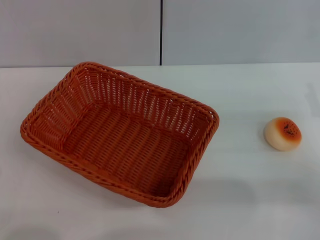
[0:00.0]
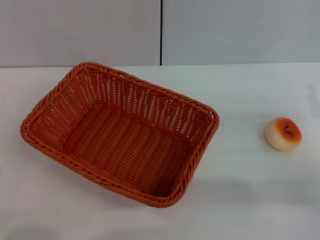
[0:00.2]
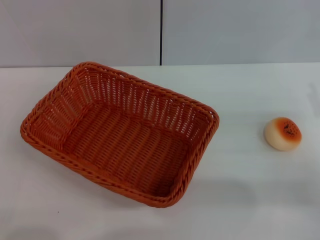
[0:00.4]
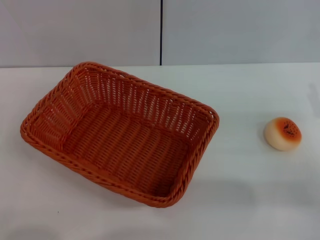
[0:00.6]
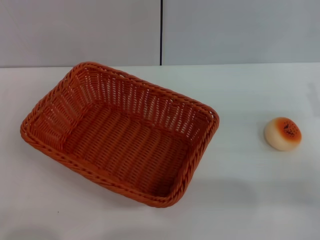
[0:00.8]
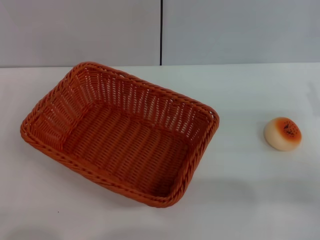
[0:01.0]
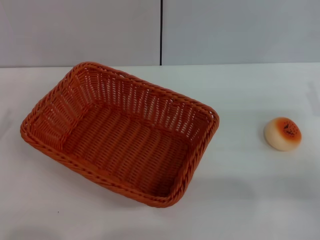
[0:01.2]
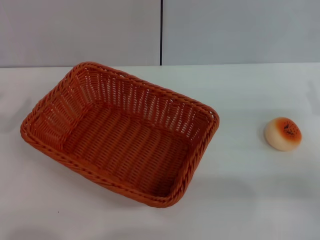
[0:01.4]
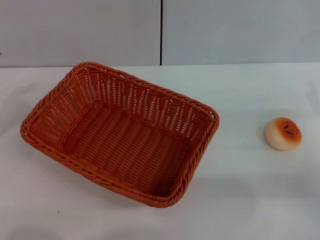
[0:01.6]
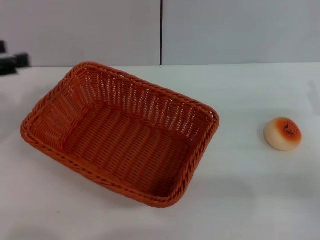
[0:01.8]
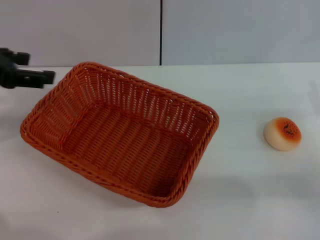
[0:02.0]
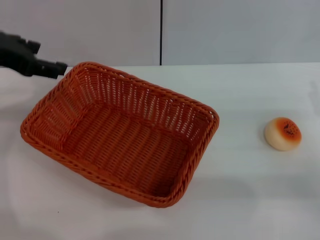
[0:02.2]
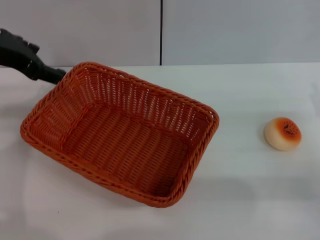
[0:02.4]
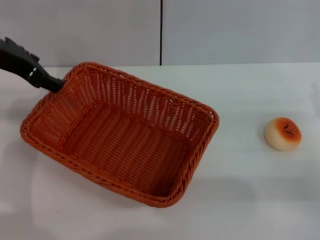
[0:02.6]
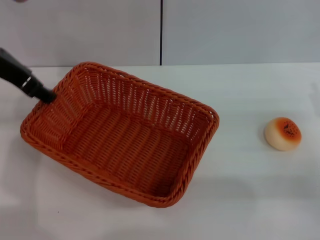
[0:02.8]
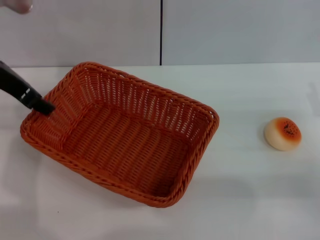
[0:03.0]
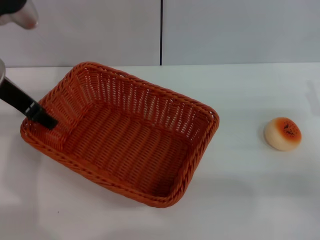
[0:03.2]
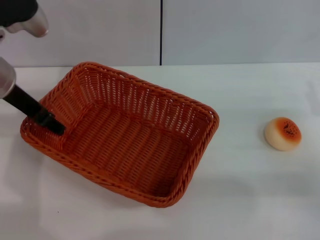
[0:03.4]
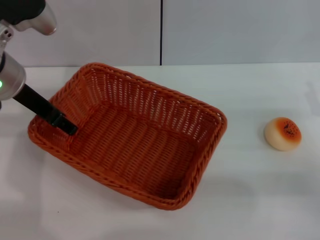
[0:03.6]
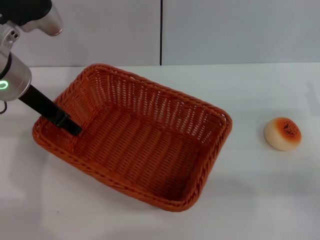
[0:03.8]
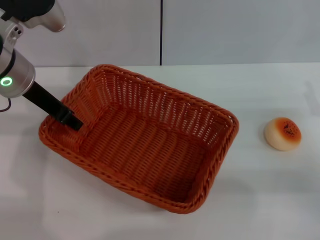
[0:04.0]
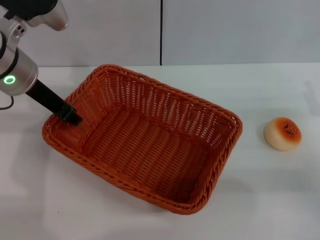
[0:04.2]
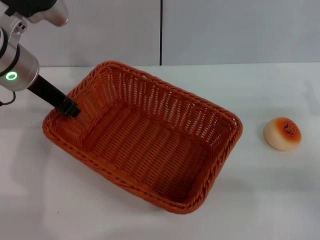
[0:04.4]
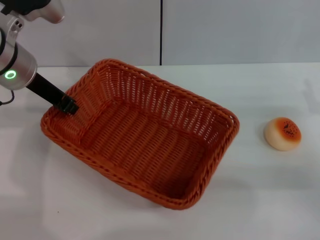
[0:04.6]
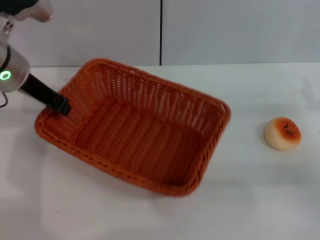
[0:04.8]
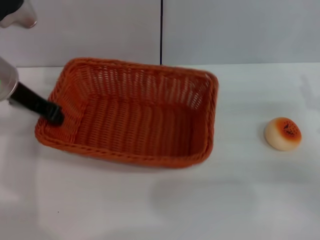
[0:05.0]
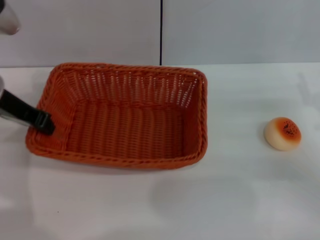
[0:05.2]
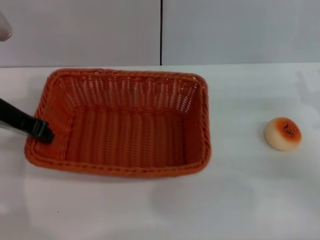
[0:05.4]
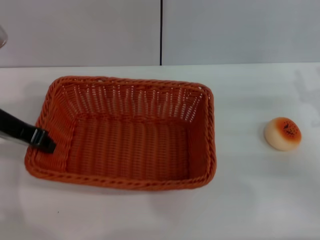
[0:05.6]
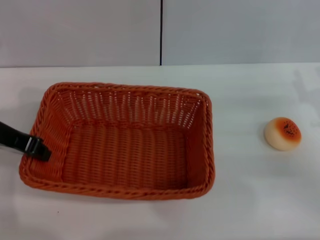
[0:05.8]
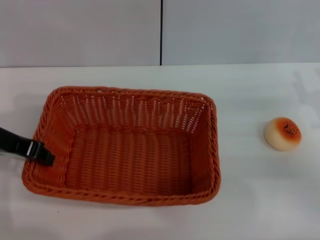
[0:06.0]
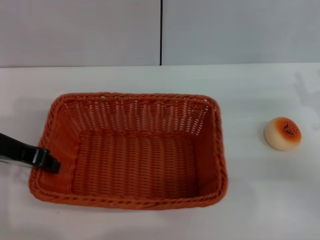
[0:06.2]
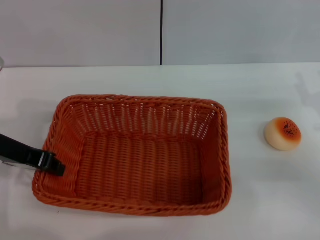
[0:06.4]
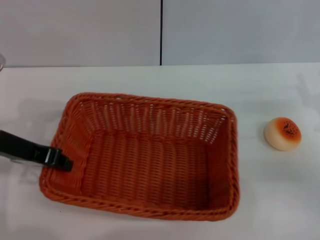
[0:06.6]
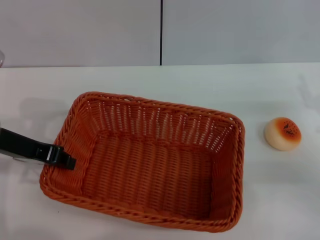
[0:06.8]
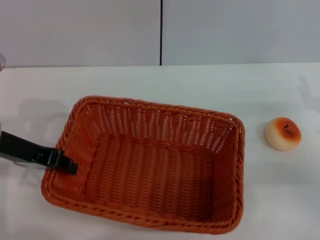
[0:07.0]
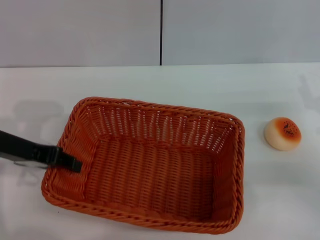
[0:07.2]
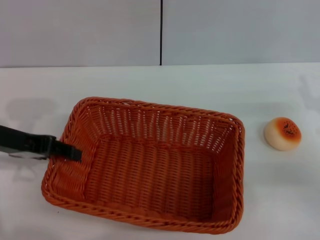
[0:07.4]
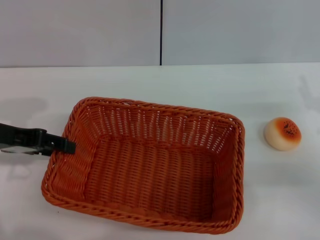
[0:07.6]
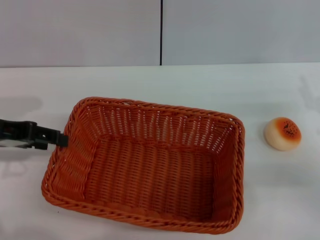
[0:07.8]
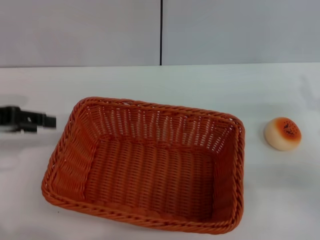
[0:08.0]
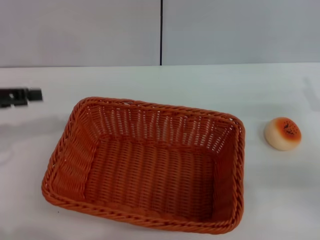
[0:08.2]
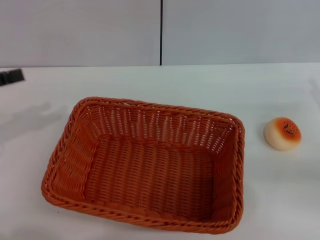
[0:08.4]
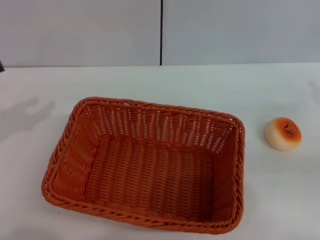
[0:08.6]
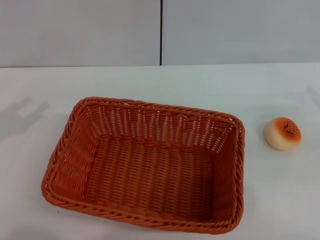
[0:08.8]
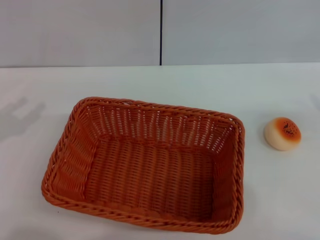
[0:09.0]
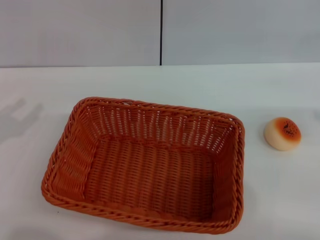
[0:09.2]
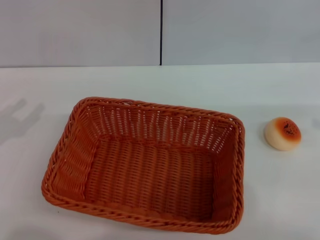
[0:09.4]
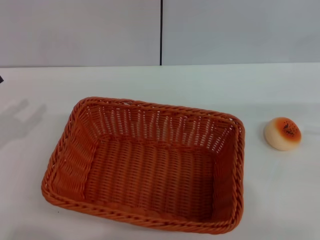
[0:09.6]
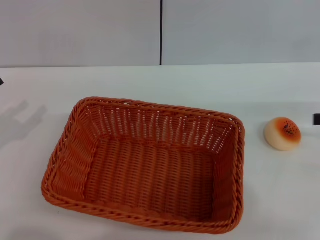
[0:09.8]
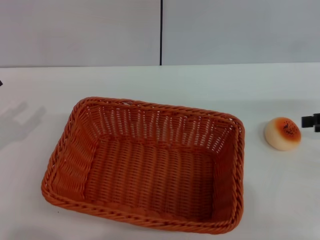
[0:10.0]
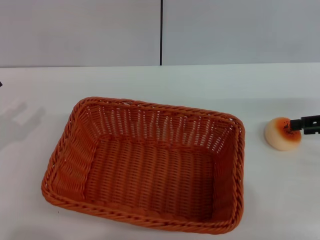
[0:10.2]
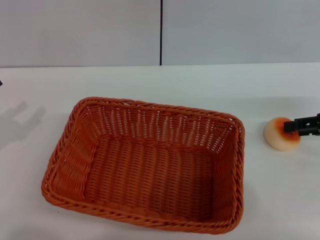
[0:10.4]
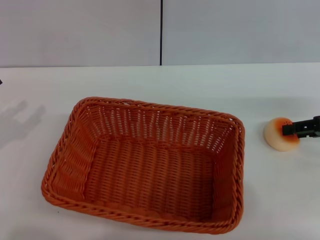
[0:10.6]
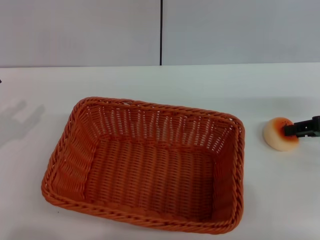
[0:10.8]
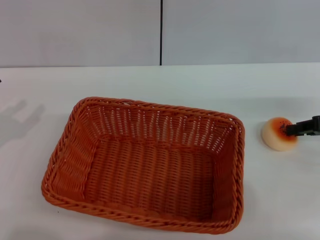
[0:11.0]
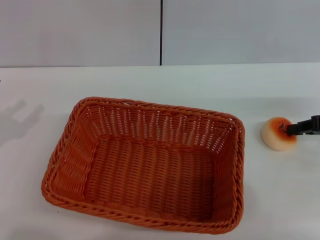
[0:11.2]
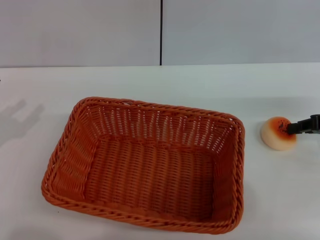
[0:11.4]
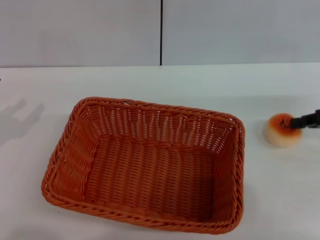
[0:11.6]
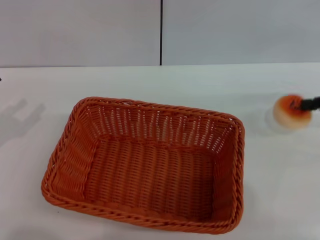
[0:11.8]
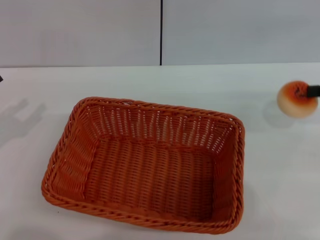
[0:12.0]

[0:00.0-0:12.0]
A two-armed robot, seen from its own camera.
Step, 0:00.0 to 0:07.8: Move the basket to the center of view with the left gripper.
Step, 0:08.0 to 0:11.8: Pick up the egg yolk pastry with the right gripper.
0:01.6 to 0:03.0: The left gripper heads to the right and forward, covering roughly 15 cm.
0:03.0 to 0:04.4: The left gripper closes up.
0:04.4 to 0:06.0: The left gripper heads backward and to the left, covering some 10 cm, and closes.
0:06.0 to 0:07.6: The left gripper opens up.
0:07.6 to 0:09.0: The left gripper travels to the left, downward and backward by roughly 15 cm. Meanwhile the right gripper shifts some 15 cm upward and to the right.
0:09.0 to 0:10.4: The right gripper is displaced downward, to the left and forward by roughly 10 cm.
0:10.4 to 0:12.0: The right gripper shifts about 5 cm upward, and closes.

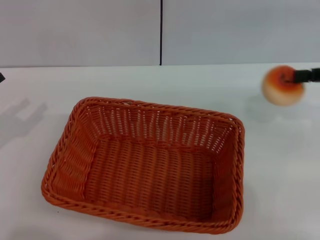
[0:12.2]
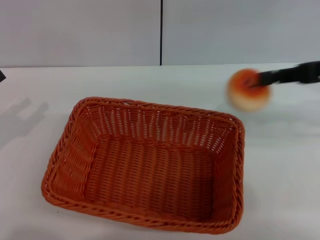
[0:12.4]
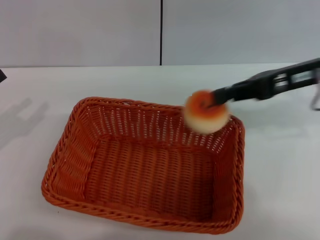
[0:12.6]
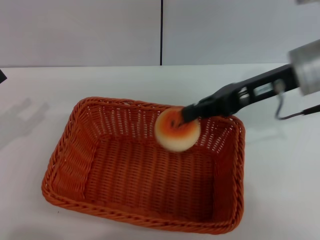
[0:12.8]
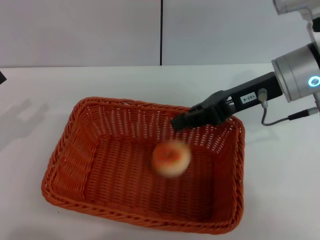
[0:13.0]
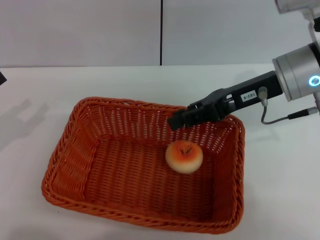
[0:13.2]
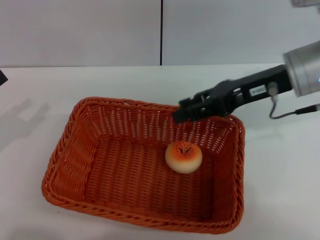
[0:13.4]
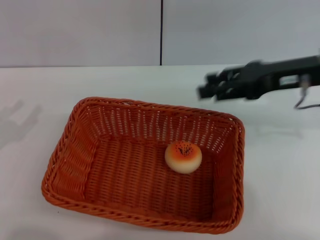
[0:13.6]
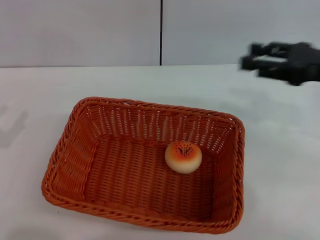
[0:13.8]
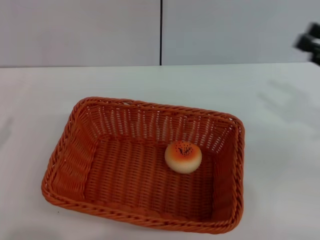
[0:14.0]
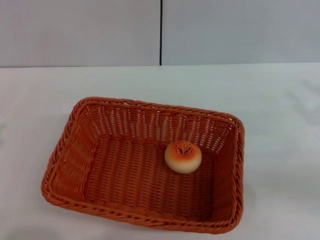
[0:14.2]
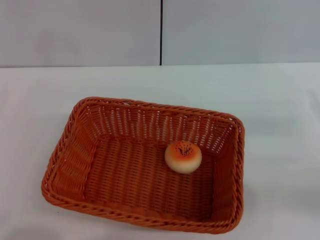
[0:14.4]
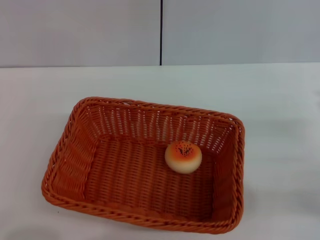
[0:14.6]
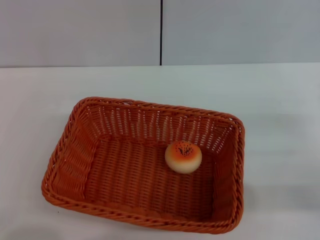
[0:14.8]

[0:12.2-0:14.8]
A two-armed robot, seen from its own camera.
Step, 0:12.2 to 0:13.0: Place the egg yolk pastry into the basket with the right gripper.
0:12.2 to 0:13.4: The right gripper goes some 15 cm to the left.
0:13.4 to 0:14.8: The right gripper heads to the right, backward and downward, covering some 20 cm, and opens up. Meanwhile the left gripper moves backward and downward, some 10 cm.

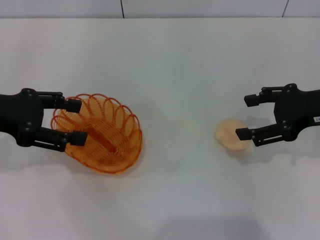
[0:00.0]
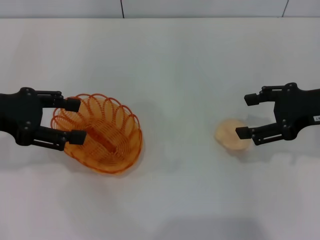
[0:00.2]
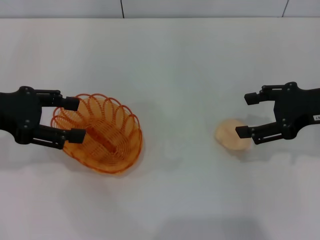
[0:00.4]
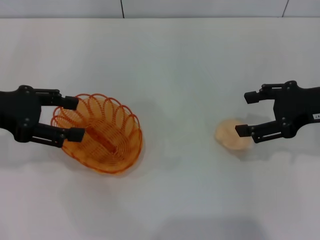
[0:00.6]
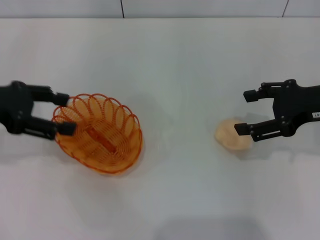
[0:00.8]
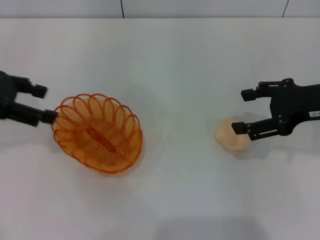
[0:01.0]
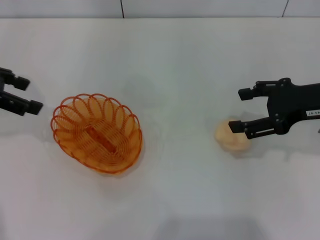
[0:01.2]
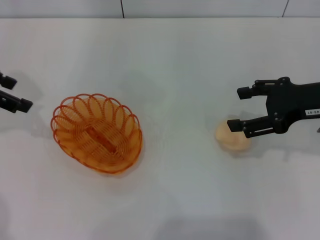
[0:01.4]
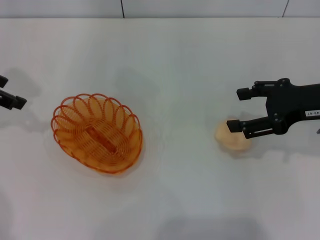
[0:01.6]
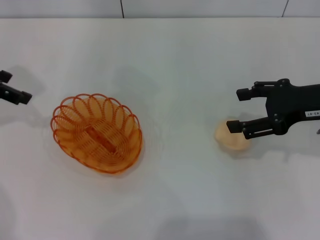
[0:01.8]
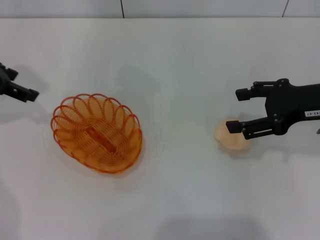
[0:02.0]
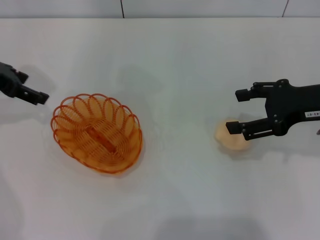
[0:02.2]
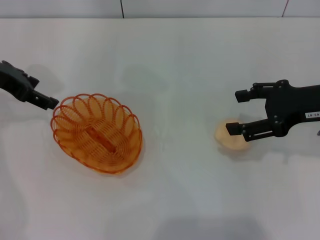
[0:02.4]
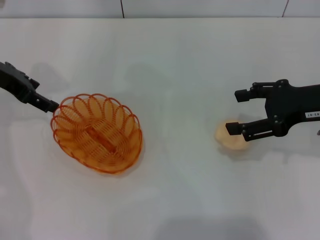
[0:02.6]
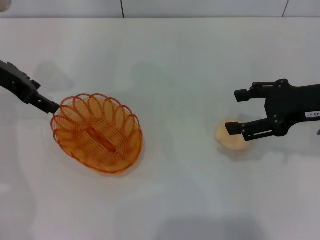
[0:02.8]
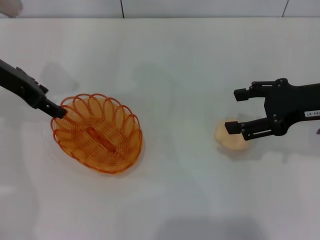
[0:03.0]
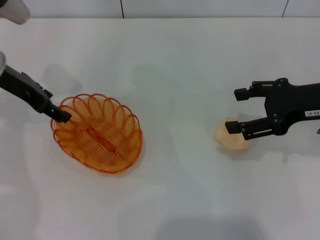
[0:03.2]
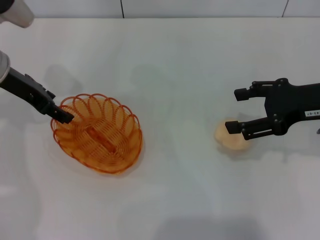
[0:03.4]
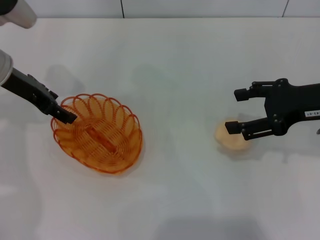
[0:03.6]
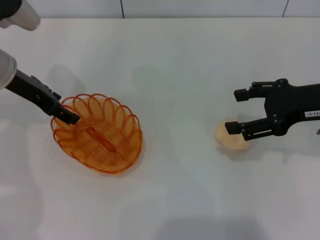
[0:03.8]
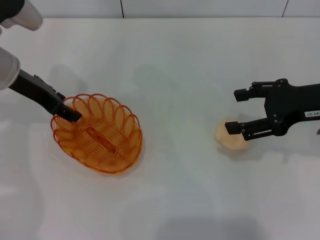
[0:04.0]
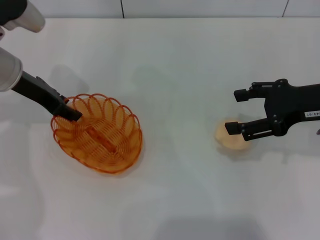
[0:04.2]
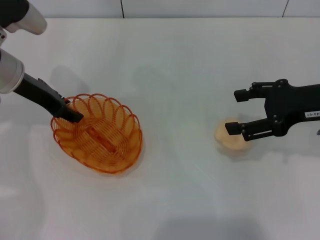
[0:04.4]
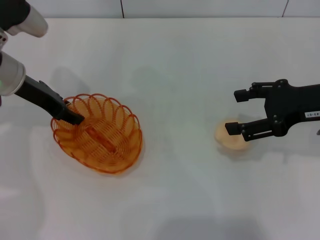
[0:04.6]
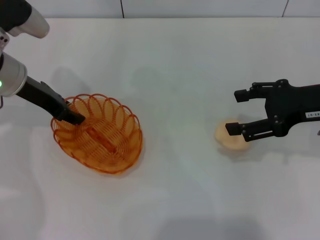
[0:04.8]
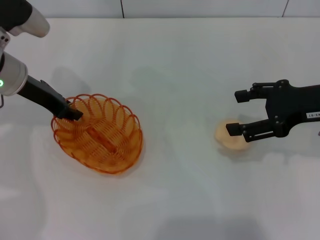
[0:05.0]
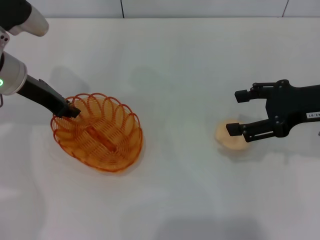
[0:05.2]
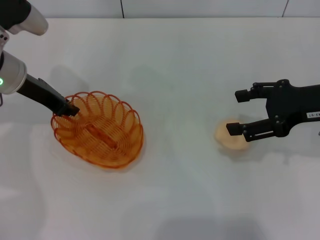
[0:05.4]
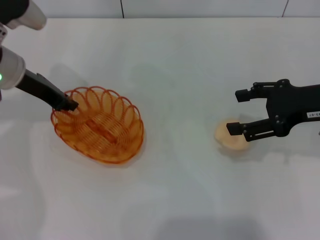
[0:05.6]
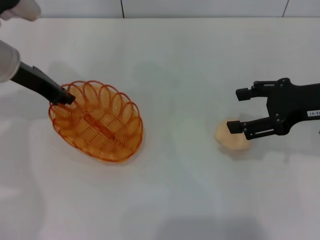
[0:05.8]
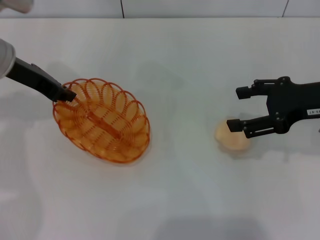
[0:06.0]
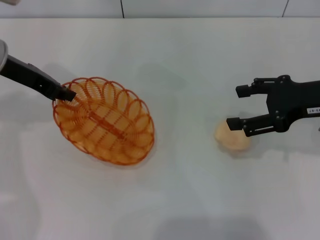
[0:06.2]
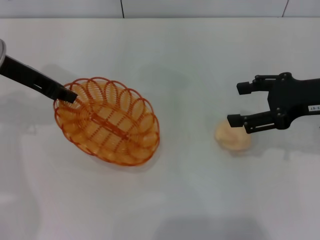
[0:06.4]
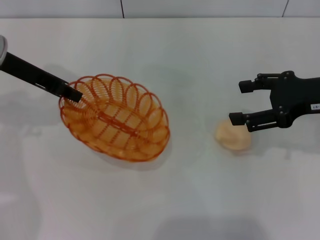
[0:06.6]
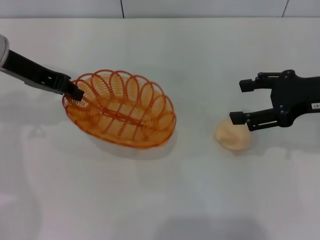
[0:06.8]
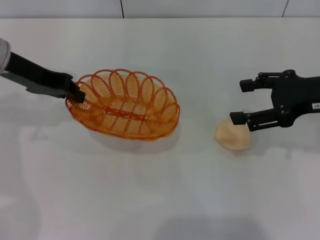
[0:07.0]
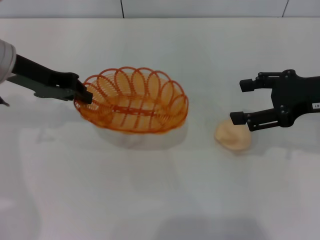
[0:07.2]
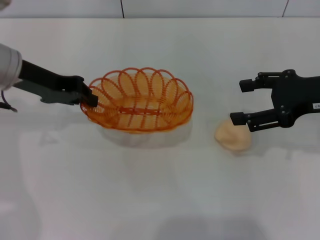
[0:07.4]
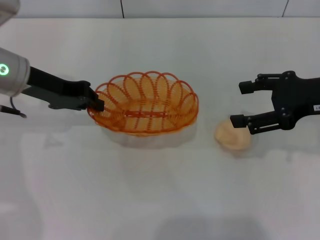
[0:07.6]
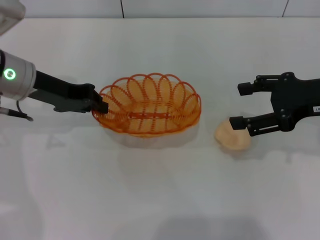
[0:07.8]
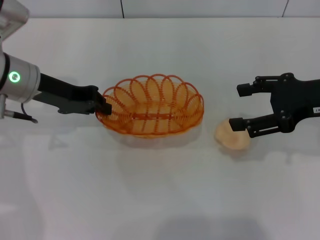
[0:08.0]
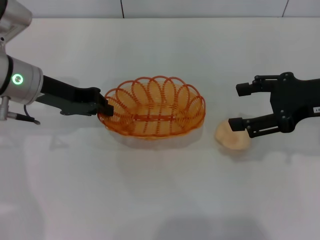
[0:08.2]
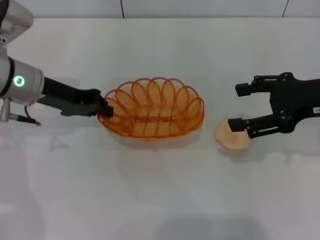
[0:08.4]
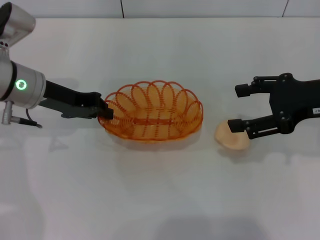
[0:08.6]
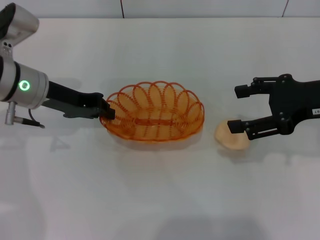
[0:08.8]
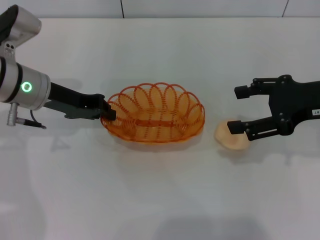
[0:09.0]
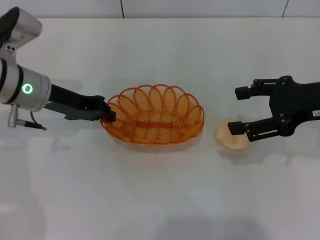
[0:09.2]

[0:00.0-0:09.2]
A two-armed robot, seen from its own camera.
Step, 0:00.0 to 0:06.0: Pick up the basket with the left gripper.
0:00.0 to 0:01.6: The left gripper moves forward, approximately 5 cm.
0:01.6 to 0:03.0: The left gripper is displaced to the right by roughly 5 cm.
0:03.0 to 0:04.6: The left gripper closes.
0:04.6 to 0:06.2: The left gripper closes up.
0:07.6 to 0:09.2: The grippers make only small movements.
